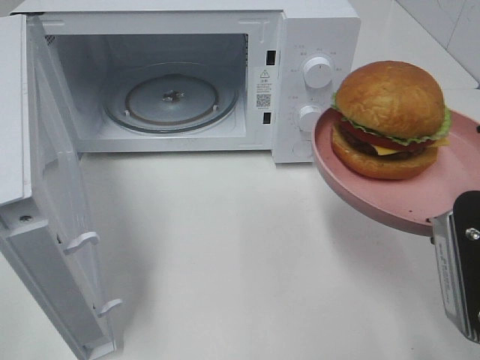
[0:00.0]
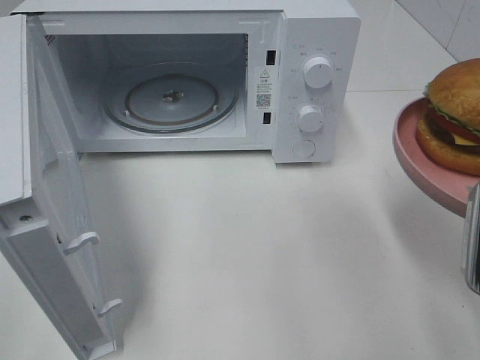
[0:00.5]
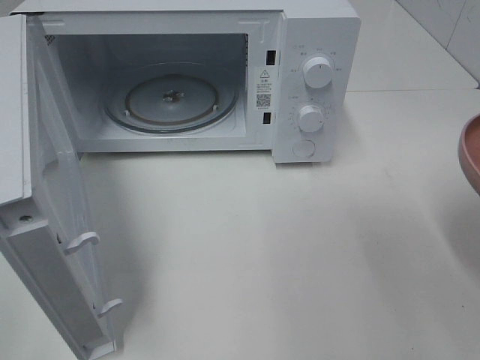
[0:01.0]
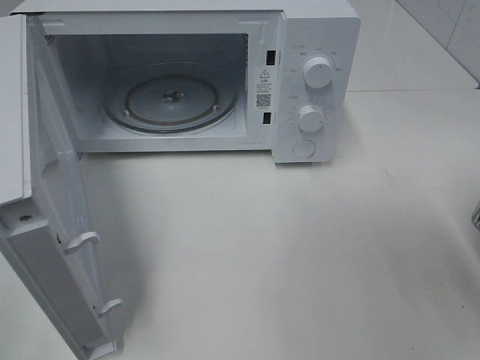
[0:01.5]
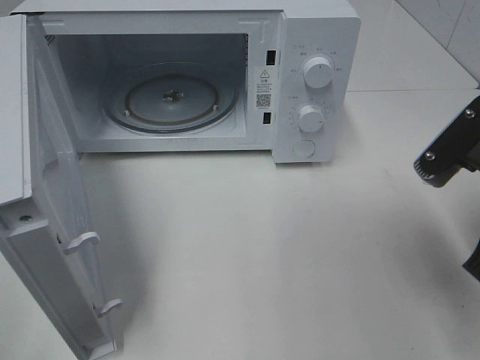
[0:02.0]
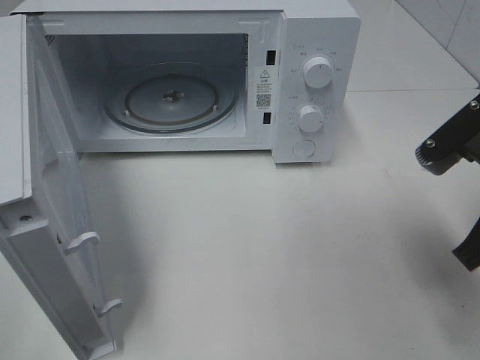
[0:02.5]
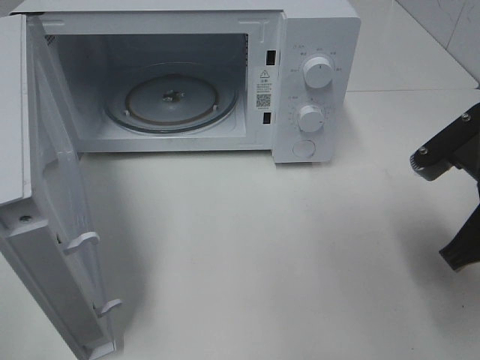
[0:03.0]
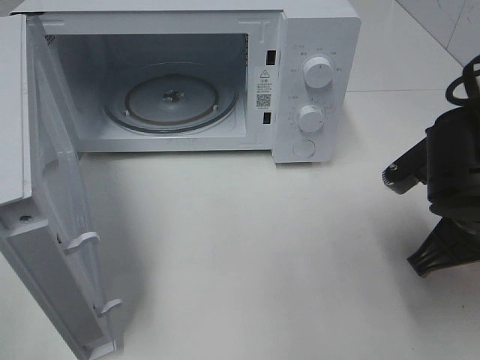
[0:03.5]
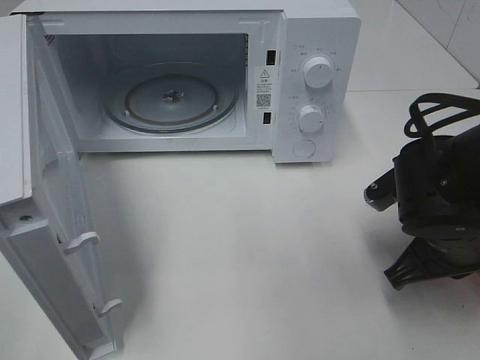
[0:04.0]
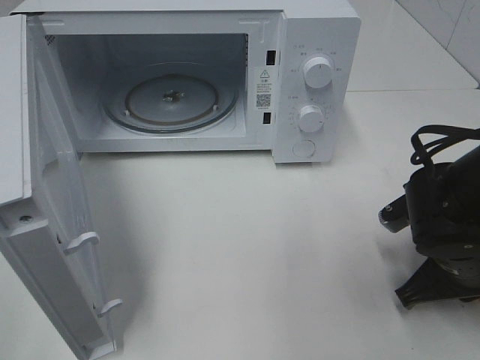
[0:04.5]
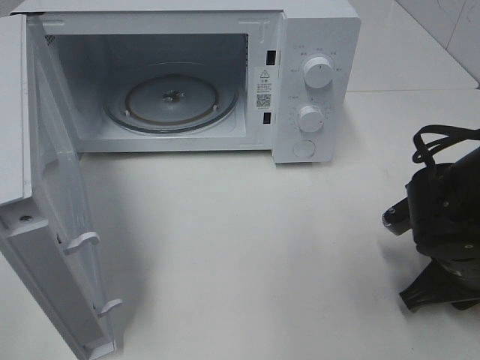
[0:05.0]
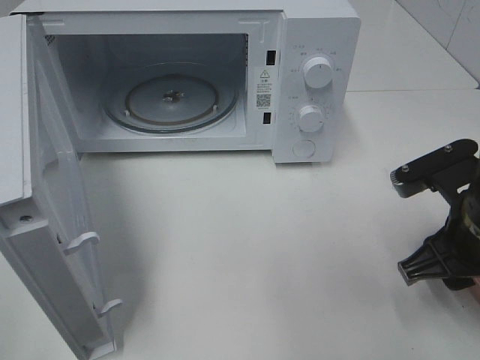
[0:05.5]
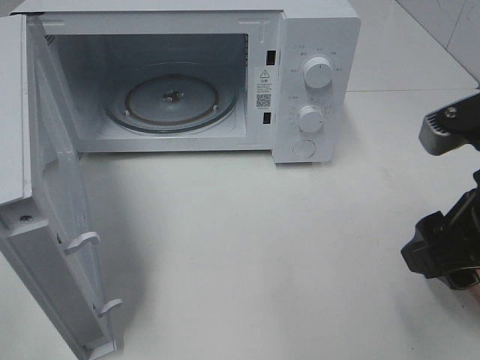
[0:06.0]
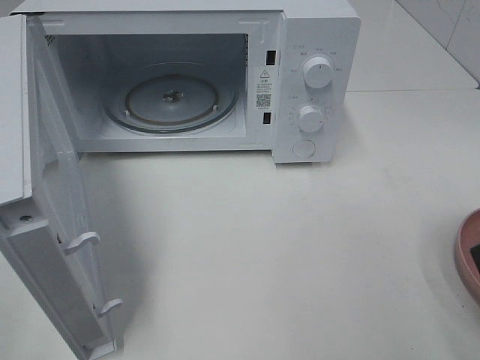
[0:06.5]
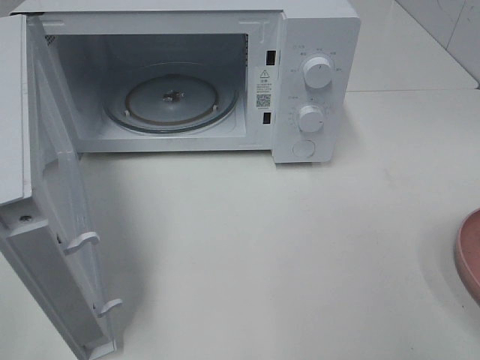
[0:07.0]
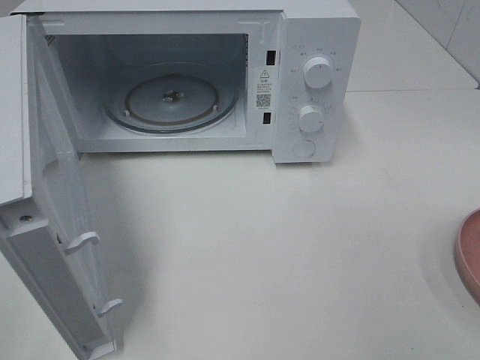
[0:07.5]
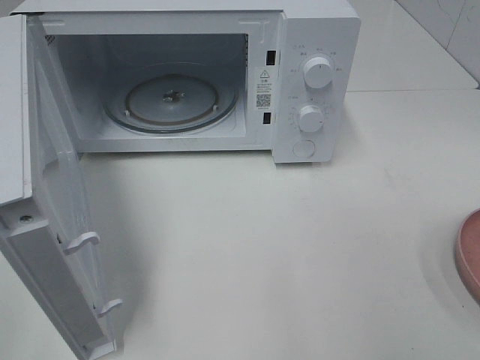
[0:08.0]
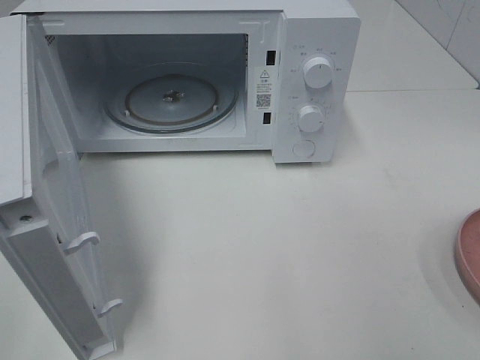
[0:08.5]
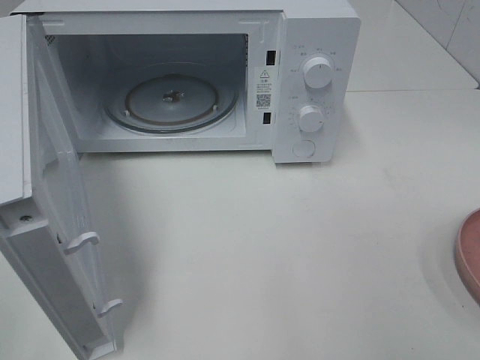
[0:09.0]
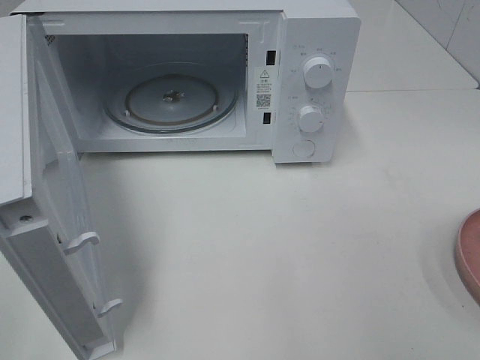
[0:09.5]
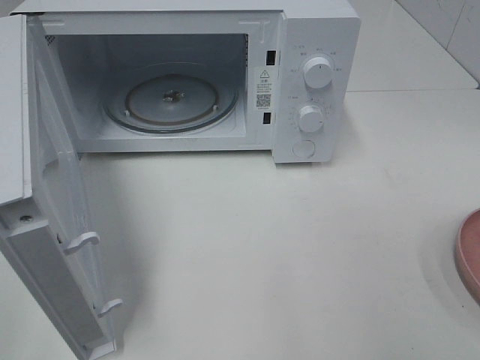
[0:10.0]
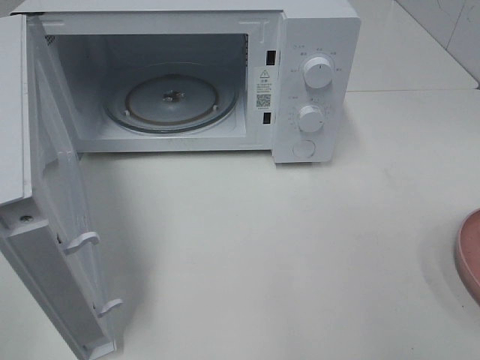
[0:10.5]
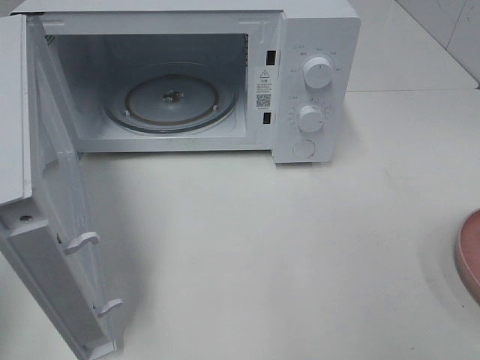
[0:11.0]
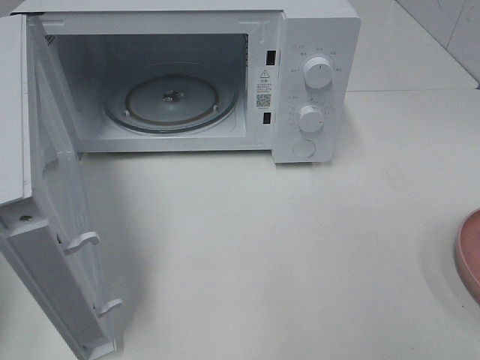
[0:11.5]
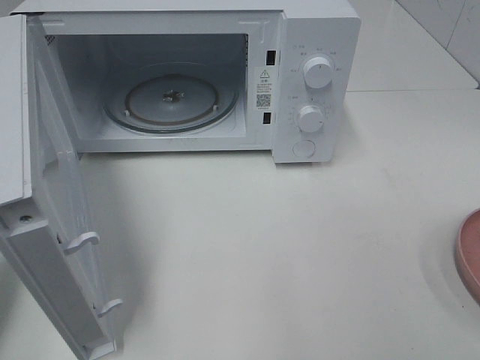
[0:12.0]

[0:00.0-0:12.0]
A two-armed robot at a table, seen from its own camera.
Task of the whole recording: Heat the burger.
Step, 0:00.0 to 0:05.0: Right hand: place the plate on the table.
0:02.0 to 0:04.0: The right gripper moves downward, about 10 cm.
0:04.0 to 0:06.0: The right gripper heads upward and backward, covering some 15 cm, and opens its fingers.
0:06.0 to 0:08.0: The right gripper shifts some 20 cm backward and to the right.
0:08.0 to 0:10.0: The two grippers keep their place.
0:10.0 to 0:12.0: The left gripper is displaced forward by roughly 15 cm, and closes up.

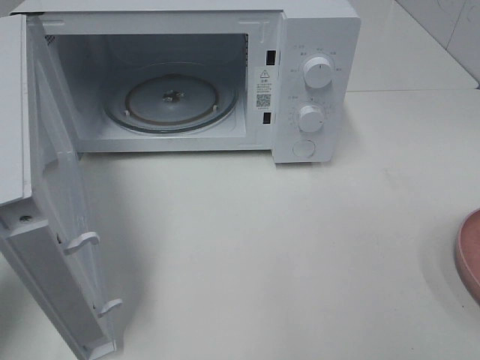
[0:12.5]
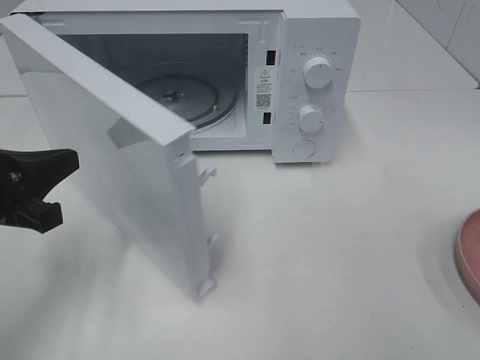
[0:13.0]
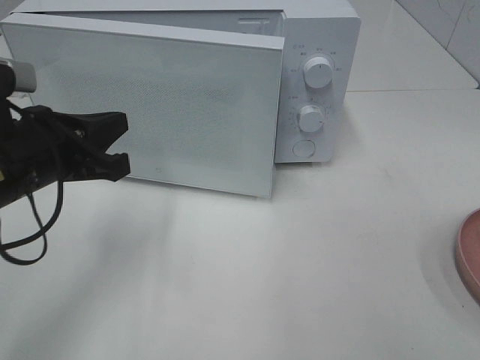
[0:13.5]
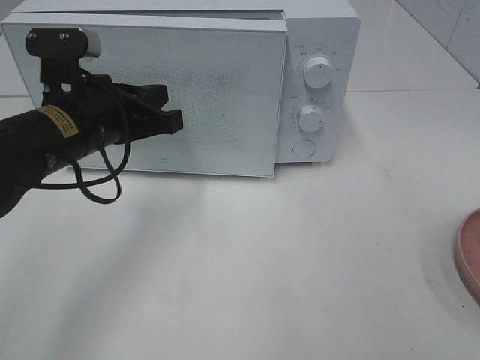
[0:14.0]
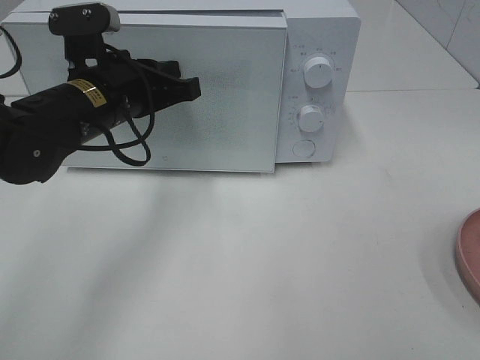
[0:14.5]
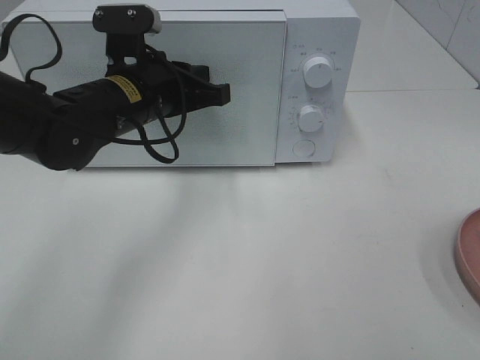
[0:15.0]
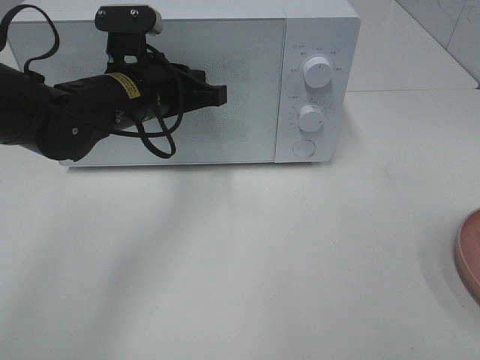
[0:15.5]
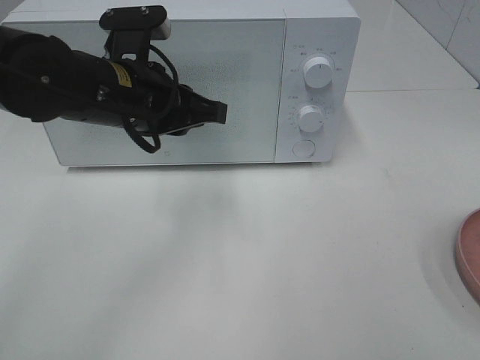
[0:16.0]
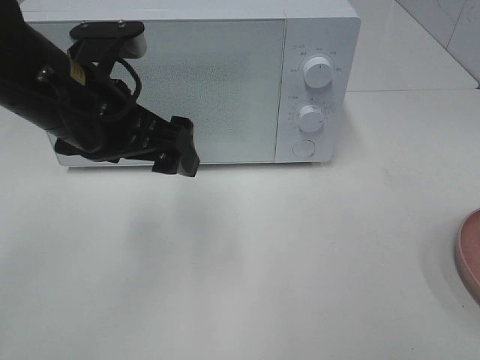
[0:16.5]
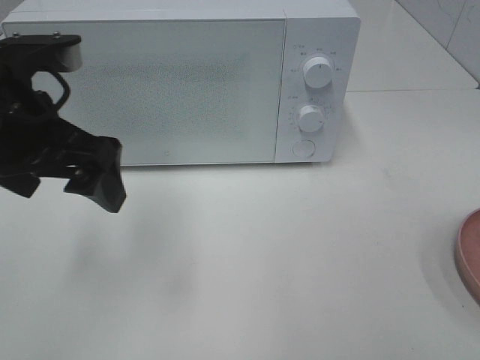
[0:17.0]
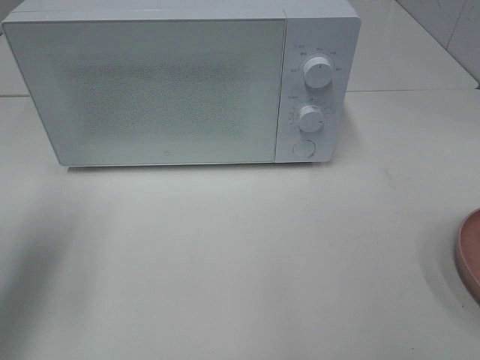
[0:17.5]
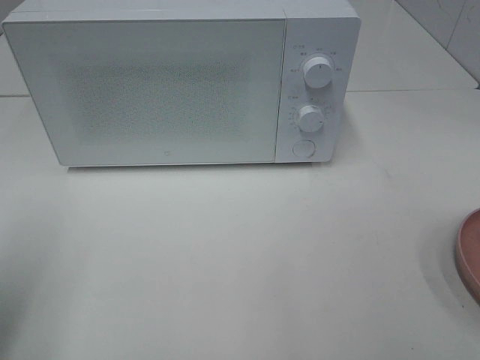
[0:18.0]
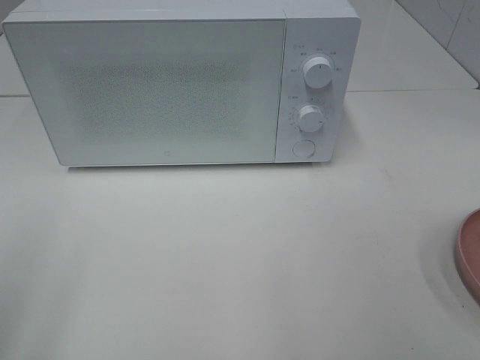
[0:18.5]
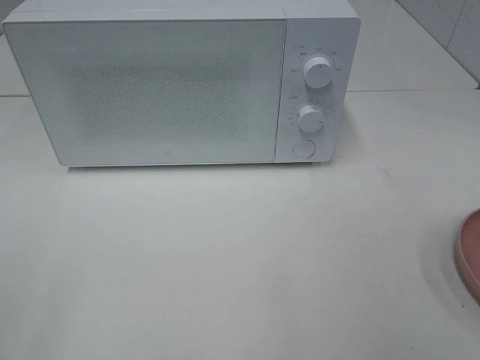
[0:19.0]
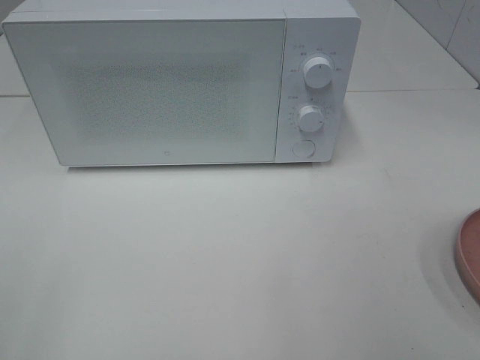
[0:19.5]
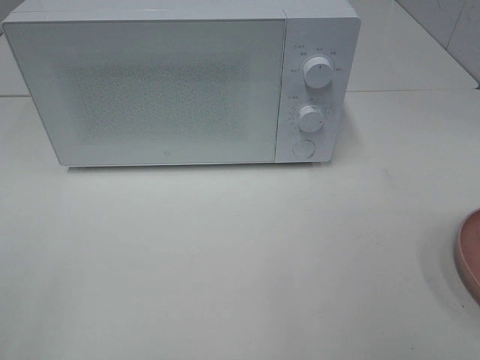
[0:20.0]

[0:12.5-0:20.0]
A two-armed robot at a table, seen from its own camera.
Task of the whole recording: Heat the burger.
Step, 0:12.5 to 0:15.5: Left hand: close the microwave door.
0:12.5 to 0:14.5: The left gripper goes approximately 20 cm to the right and forward.
0:14.5 to 0:16.5: The left gripper heads backward, covering some 5 cm, and opens its fingers.
0:16.5 to 0:18.0: The left gripper shifts some 20 cm to the left and backward.
0:18.0 to 0:20.0: The left gripper moves backward, some 15 cm.
